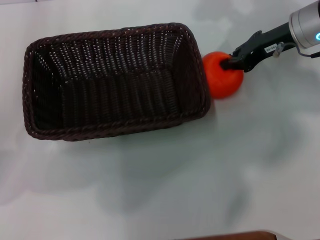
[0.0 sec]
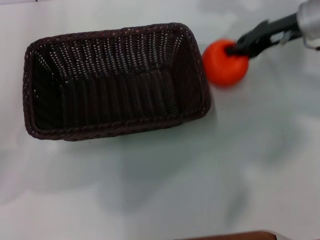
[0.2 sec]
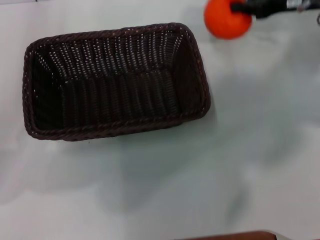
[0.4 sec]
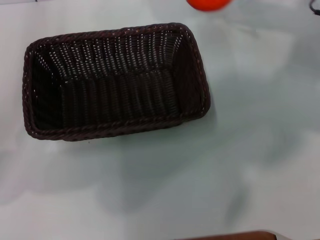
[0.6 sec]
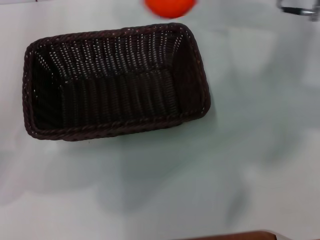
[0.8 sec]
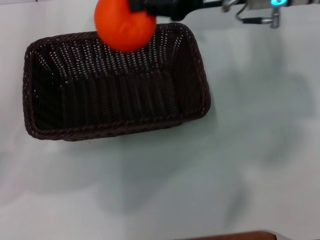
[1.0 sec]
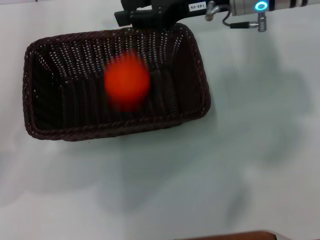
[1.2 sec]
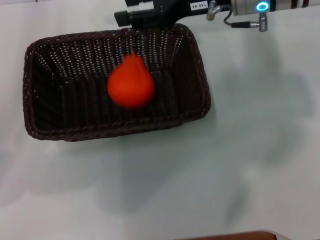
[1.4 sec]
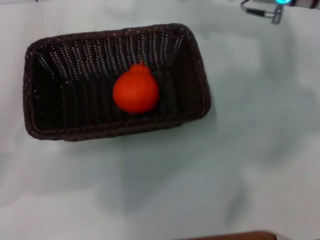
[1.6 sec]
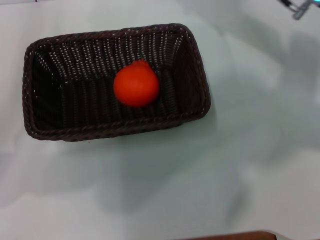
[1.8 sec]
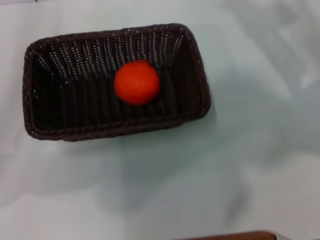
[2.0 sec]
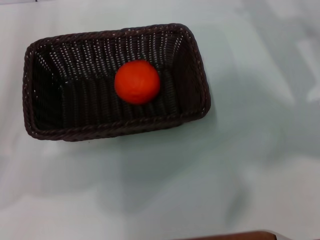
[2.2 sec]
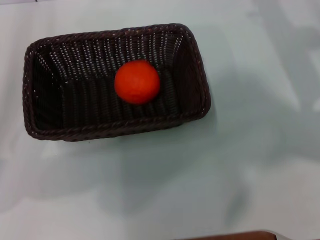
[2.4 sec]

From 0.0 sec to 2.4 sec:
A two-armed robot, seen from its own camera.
Task of the whole recording: the left gripper pick up the black basket and place it horizontally in the middle of the table, the right gripper pick up the orange and place it into the black basket.
Step, from 0.4 sec to 1.4 sec: Place the orange into the dark basket with the right gripper.
From 0.0 sec to 1.2 sec: The right gripper travels to the left by roughly 10 cm.
From 1.2 sec to 2.4 sec: The right gripper goes some 20 cm to the right, backward and downward, and opens.

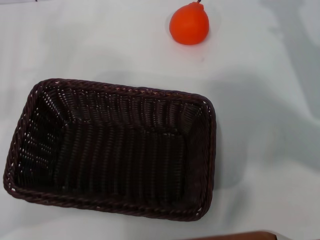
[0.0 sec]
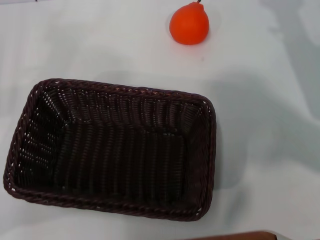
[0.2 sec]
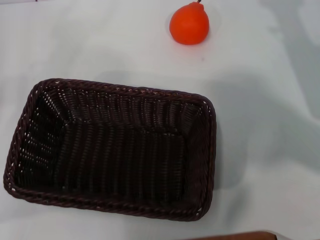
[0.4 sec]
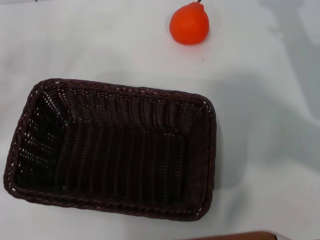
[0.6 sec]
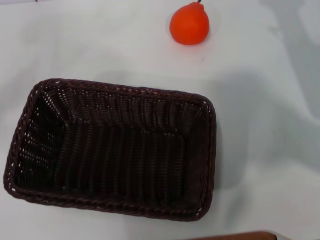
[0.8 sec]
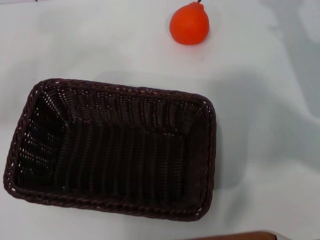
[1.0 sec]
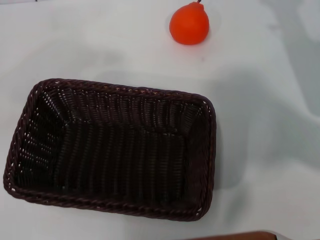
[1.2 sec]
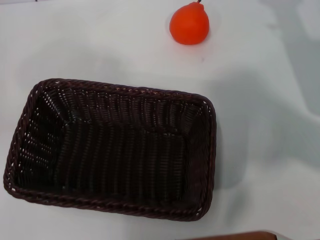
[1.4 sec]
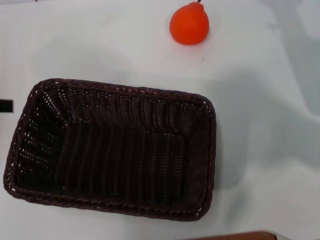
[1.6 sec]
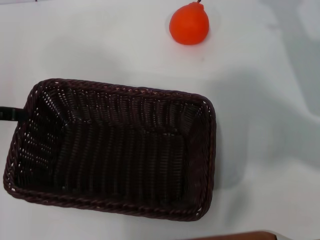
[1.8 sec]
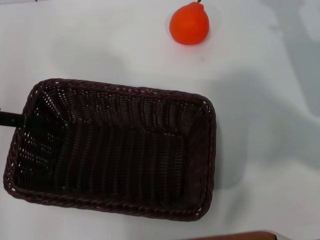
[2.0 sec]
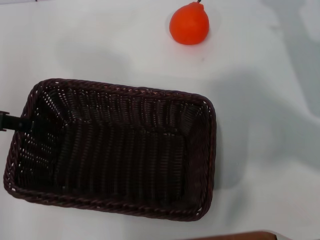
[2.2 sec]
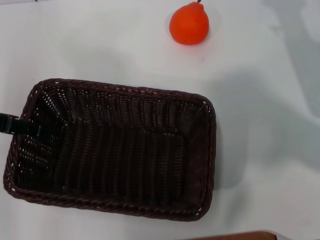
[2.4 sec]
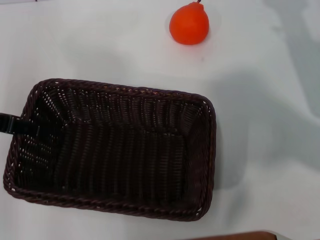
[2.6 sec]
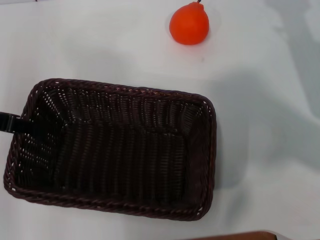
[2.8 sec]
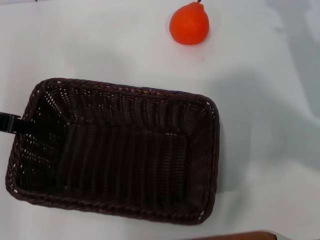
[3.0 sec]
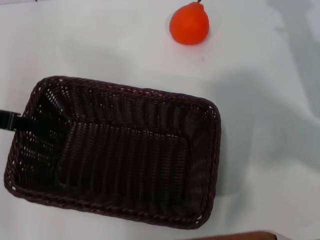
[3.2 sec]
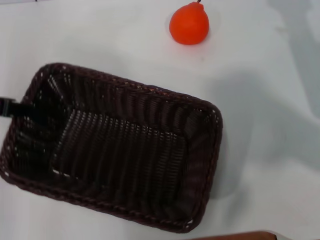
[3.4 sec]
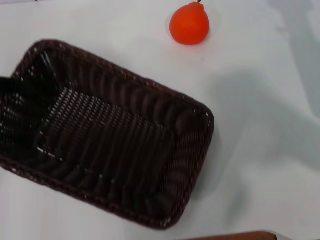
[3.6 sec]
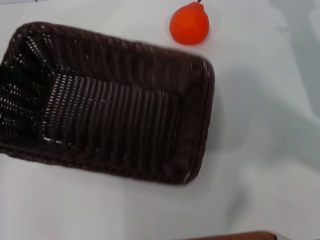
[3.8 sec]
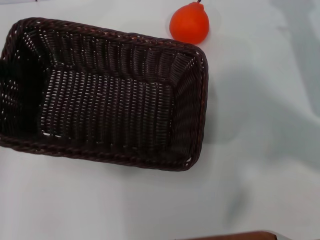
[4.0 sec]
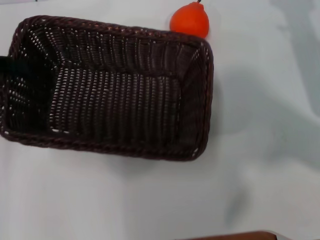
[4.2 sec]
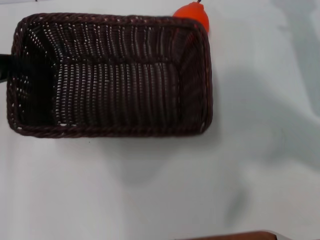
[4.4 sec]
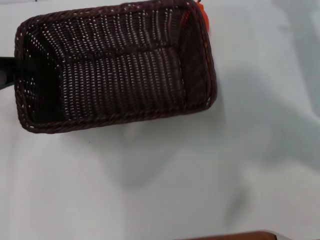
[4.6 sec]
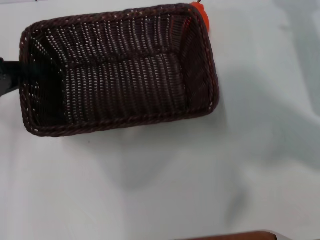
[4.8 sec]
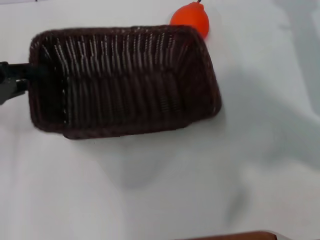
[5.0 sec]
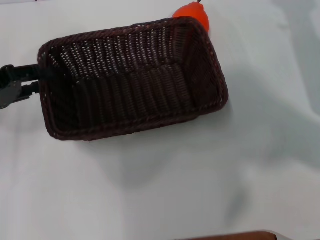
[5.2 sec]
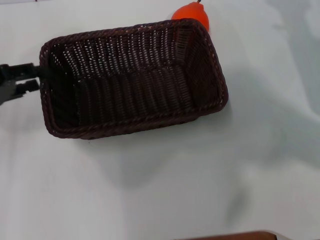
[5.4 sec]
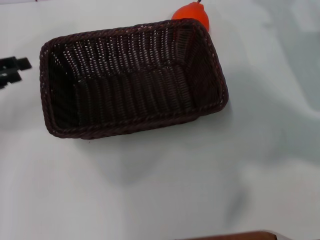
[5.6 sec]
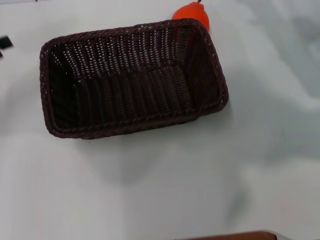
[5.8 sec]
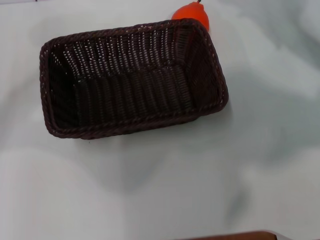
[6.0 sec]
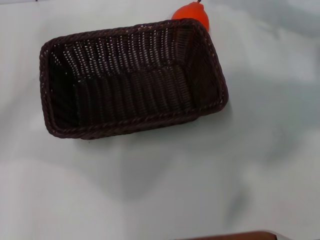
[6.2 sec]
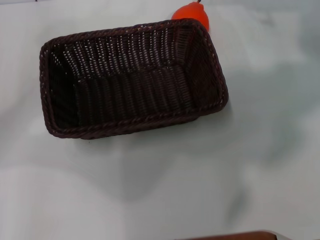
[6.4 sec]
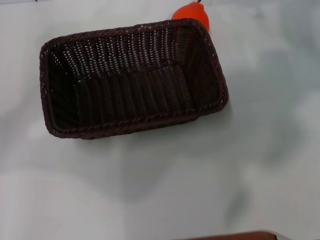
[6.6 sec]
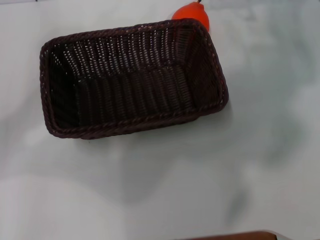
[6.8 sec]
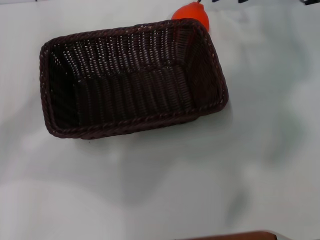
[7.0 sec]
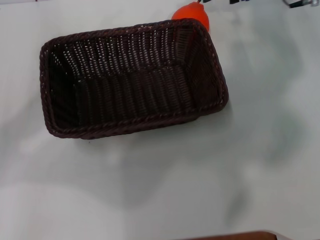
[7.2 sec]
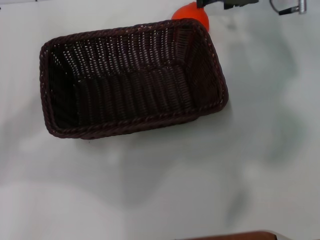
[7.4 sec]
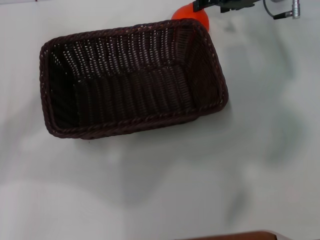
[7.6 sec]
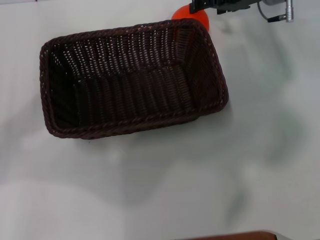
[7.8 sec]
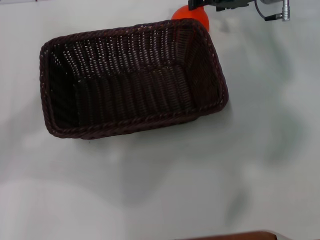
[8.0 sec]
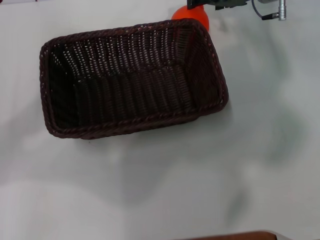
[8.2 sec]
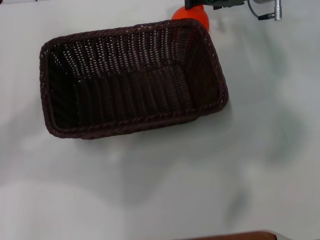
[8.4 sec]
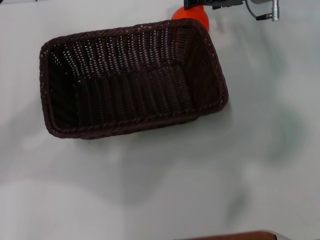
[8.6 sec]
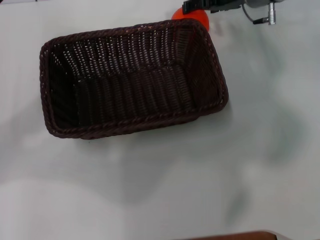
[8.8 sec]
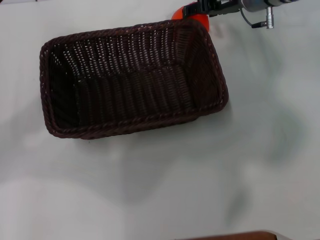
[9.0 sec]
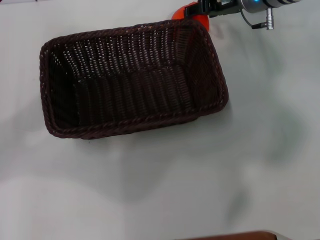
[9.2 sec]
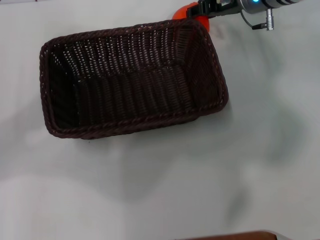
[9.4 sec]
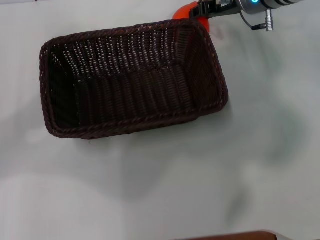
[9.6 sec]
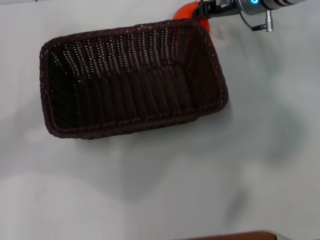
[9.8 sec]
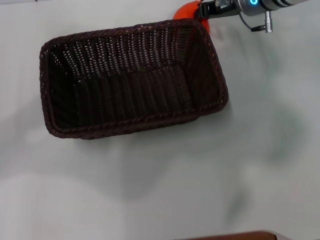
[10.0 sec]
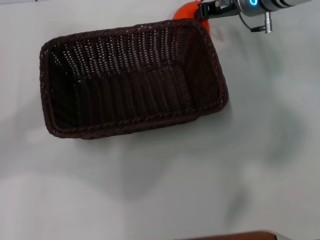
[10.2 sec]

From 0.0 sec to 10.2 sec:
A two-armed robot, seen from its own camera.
Task of the whole recording: the left gripper pick up the black basket and place it horizontally in the middle of the table, the right gripper pick up the orange and place it into the black basket.
Step, from 0.0 sec to 3.6 sec: Pick up the dark basket with the left gripper.
Step, from 4.0 sec to 5.6 sec: Place the dark basket in the center of view with the left gripper.
From 1.4 sec to 3.0 sec: The left gripper is displaced to the right by some 5 cm, and closes up.
From 4.4 sec to 5.8 sec: The left gripper opens.
From 5.8 sec to 7.2 sec: The right gripper heads forward, to the left and upward, covering approximately 15 cm, while the left gripper opens.
From 7.2 sec to 8.8 sec: The right gripper moves some 5 cm.
From 8.8 sec to 10.2 sec: The right gripper closes up.

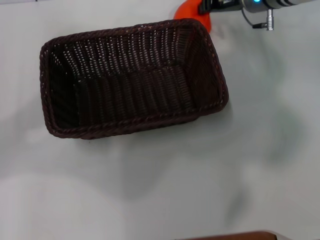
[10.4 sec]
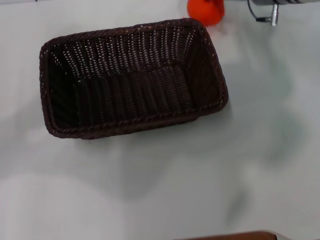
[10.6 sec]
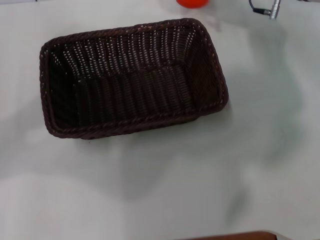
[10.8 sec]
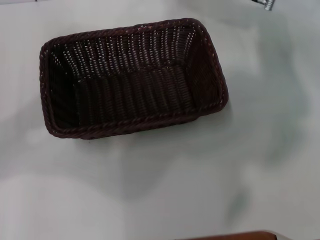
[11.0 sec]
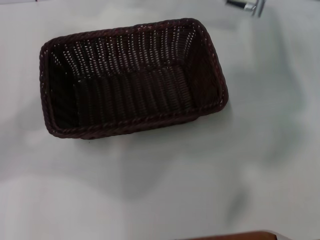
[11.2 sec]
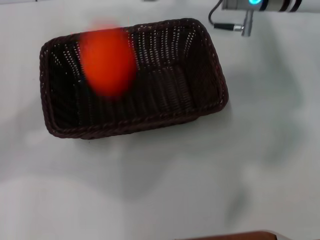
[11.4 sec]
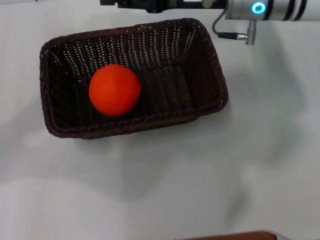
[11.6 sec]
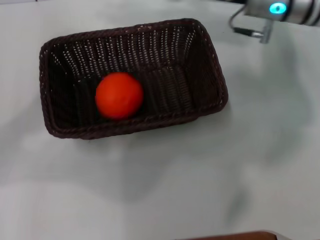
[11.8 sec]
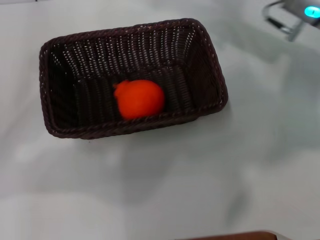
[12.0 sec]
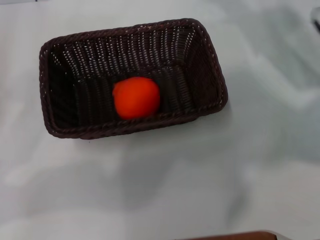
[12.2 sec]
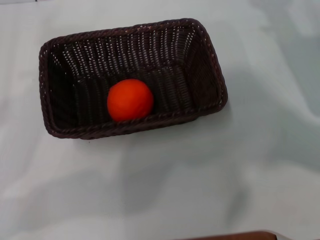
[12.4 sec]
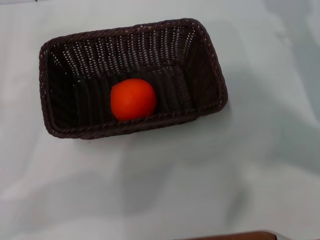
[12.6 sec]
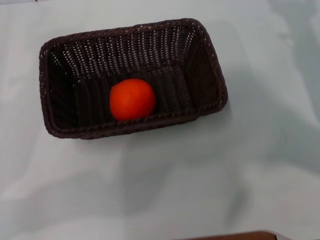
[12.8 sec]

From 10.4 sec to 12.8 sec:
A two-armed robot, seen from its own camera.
Task of the whole recording: the left gripper pick up the black basket and place it horizontally in the middle of the table, the right gripper pick up the orange and place it into the black basket.
Step, from 11.0 sec to 11.8 sec: Place the orange into the dark basket with the right gripper.
From 10.4 sec to 11.6 sec: The right gripper moves backward, some 10 cm.
From 11.6 sec to 12.8 sec: The right gripper shifts about 20 cm to the right, downward and backward, and opens up, while the left gripper changes place by some 5 cm.
